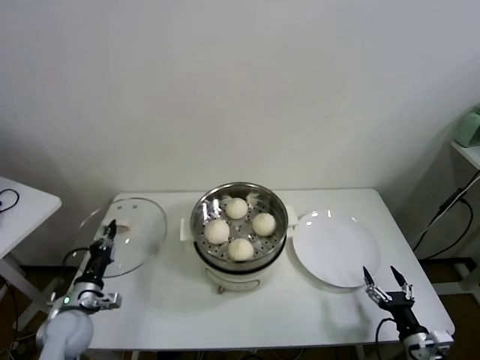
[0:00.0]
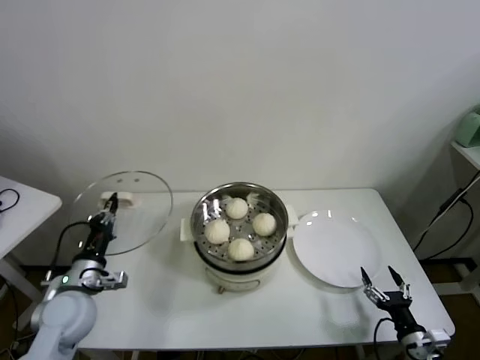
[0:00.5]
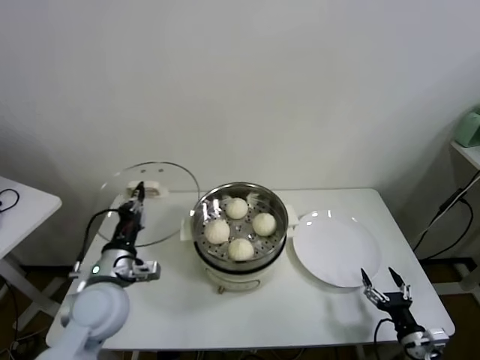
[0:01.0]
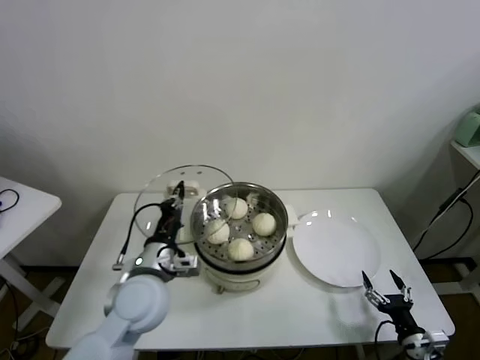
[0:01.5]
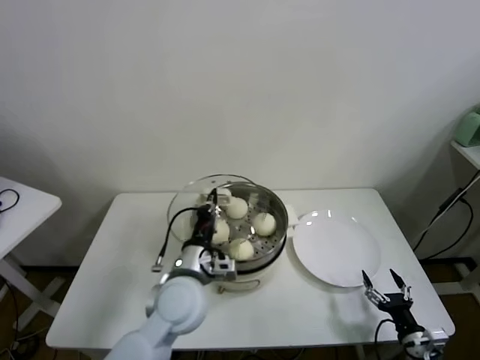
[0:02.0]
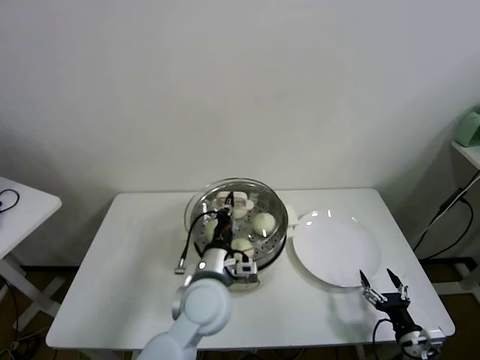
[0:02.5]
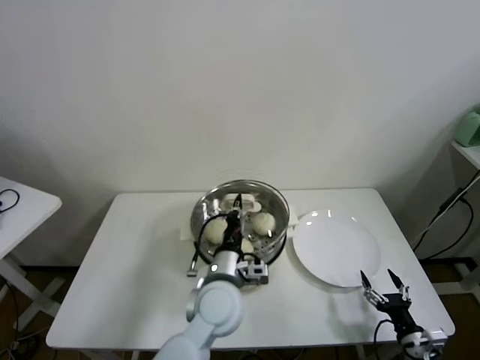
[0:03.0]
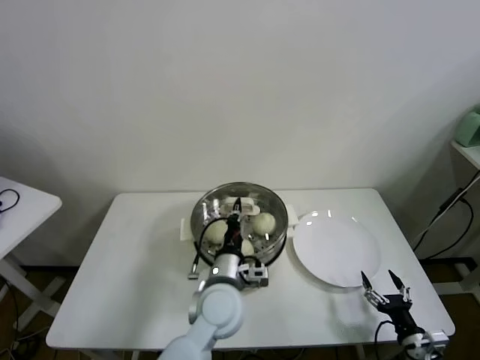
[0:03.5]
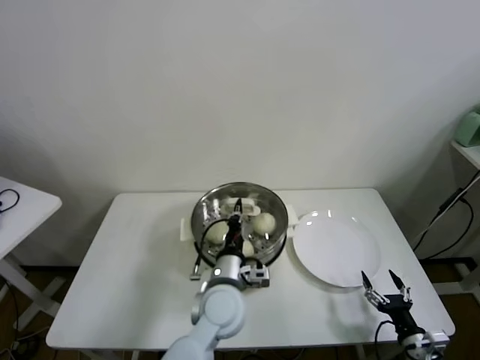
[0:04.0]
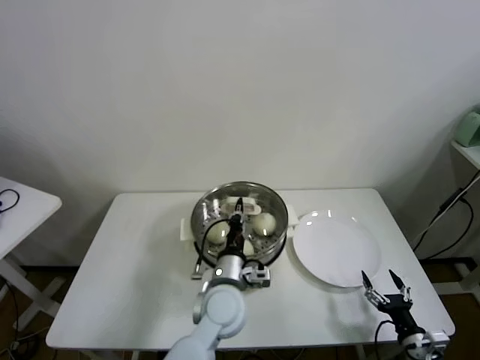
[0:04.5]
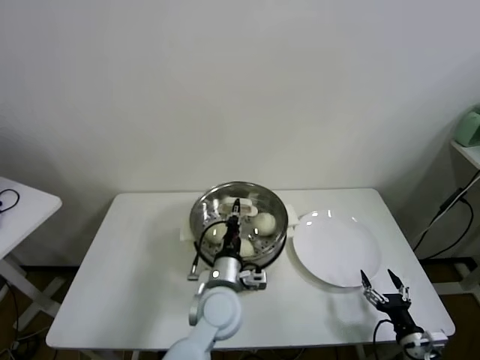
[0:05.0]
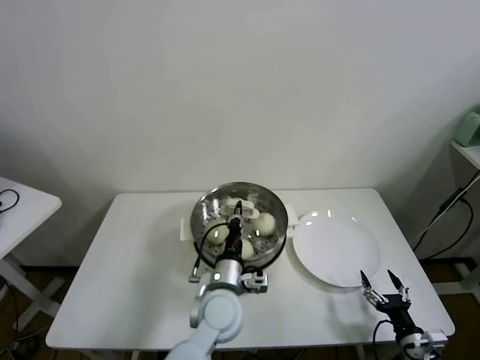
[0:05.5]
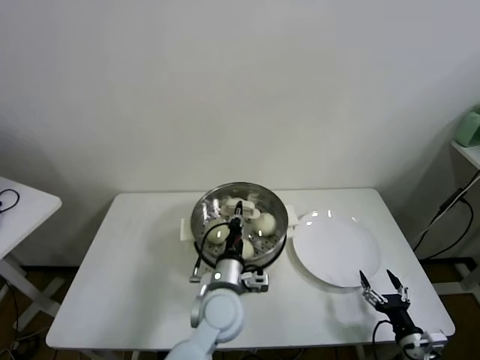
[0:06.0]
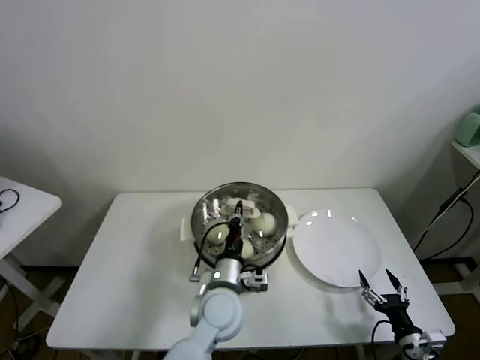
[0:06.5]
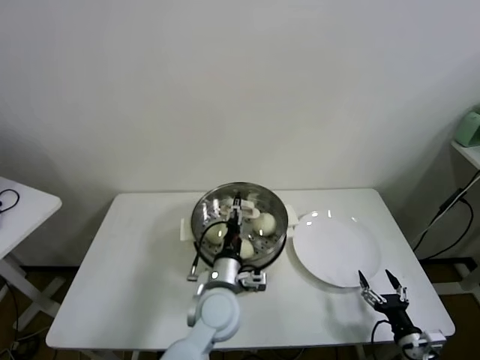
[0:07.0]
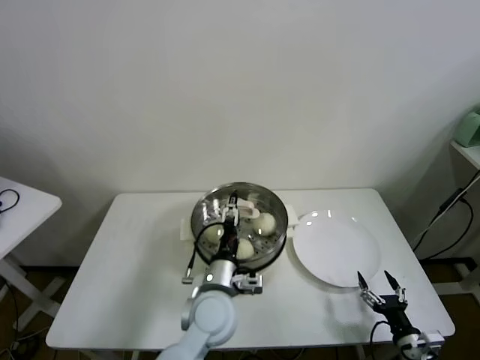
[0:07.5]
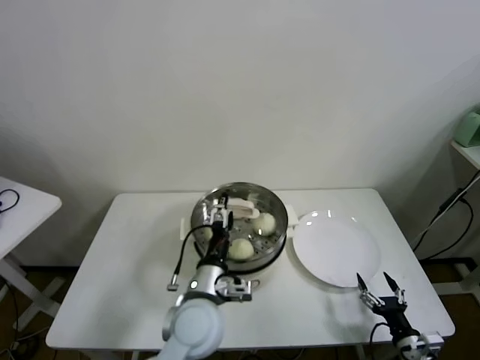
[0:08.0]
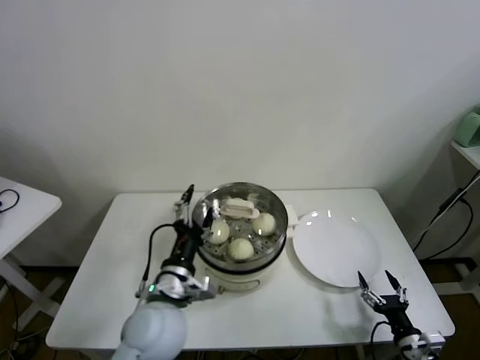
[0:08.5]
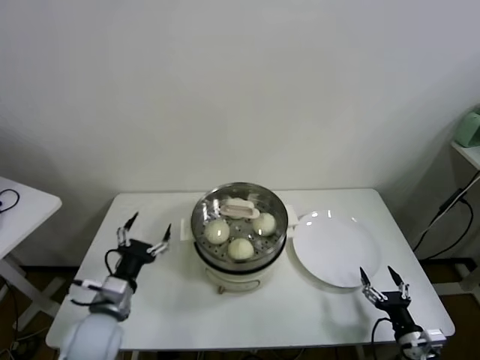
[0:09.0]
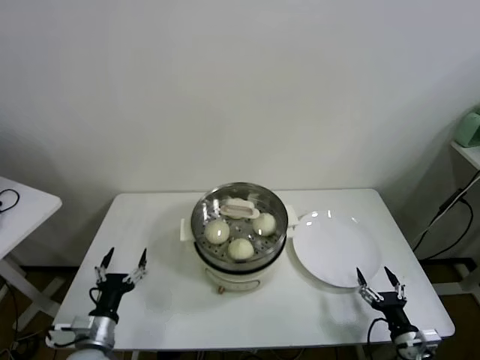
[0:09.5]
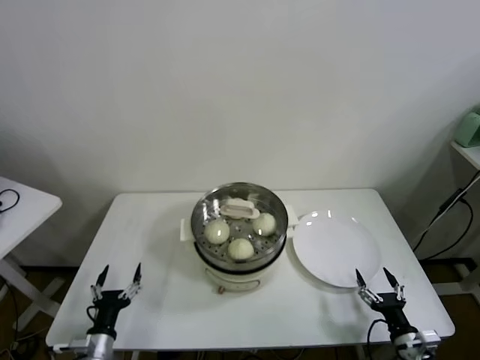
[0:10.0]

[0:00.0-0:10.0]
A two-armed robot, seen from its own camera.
Task of the whole recording: take steamed baozi put them in steamer.
0:00.0 to 0:02.0: The left gripper is displaced to the right and upward by roughly 30 cm.
0:02.0 to 0:04.0: The left gripper moves to the right and downward, approximately 10 cm.
0:04.0 to 0:06.0: The grippers make only small movements.
0:06.0 to 0:08.0: The left gripper moves some 5 cm, and opens its fingers.
0:08.0 to 0:10.0: The left gripper shifts approximately 30 cm to the left and downward.
